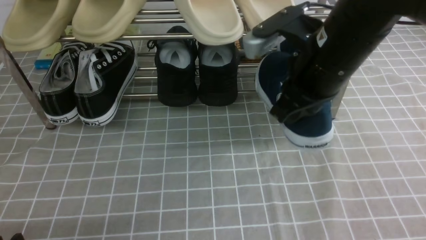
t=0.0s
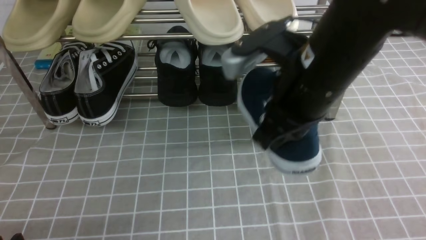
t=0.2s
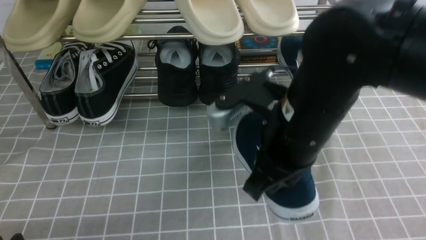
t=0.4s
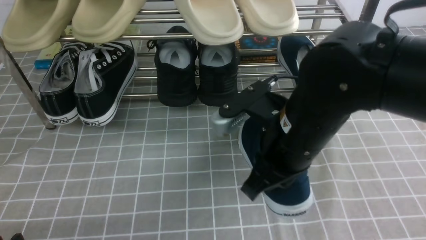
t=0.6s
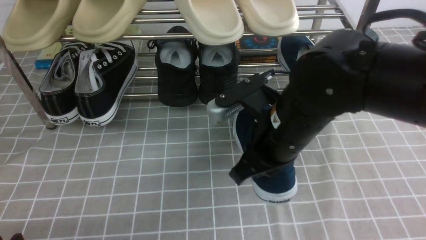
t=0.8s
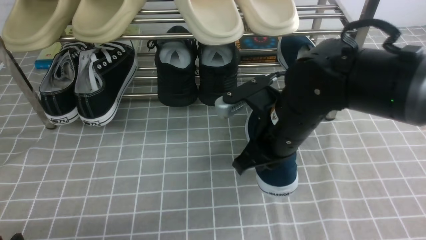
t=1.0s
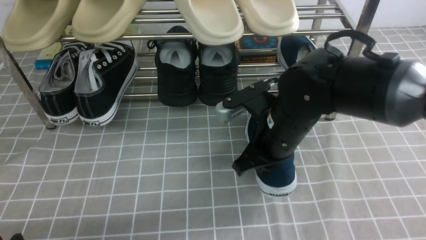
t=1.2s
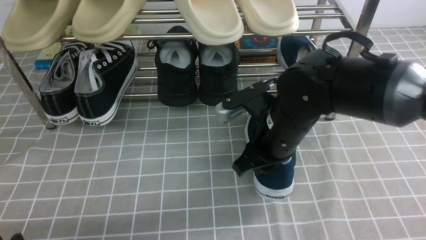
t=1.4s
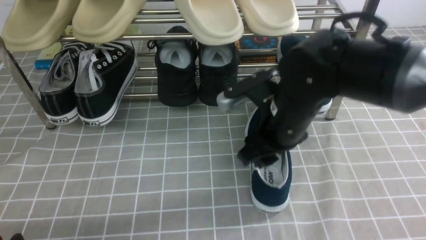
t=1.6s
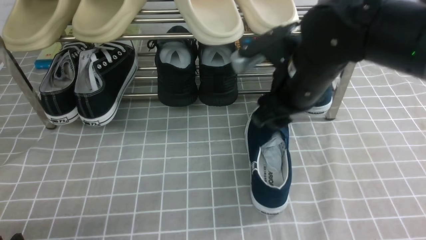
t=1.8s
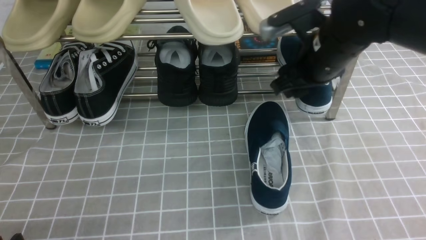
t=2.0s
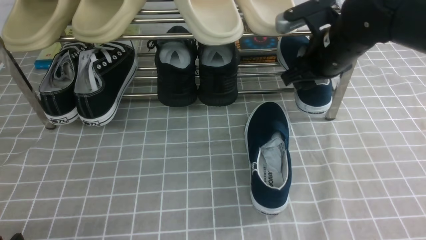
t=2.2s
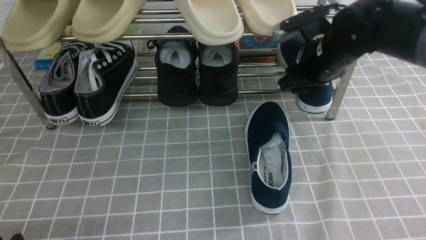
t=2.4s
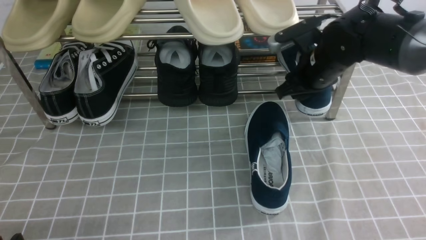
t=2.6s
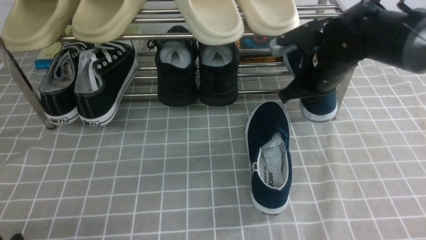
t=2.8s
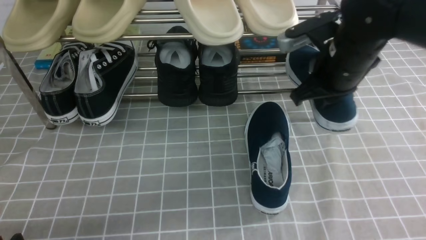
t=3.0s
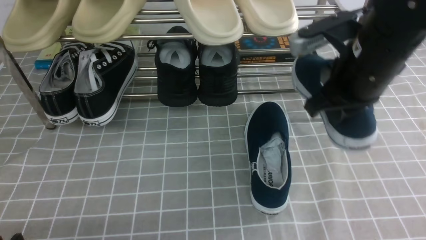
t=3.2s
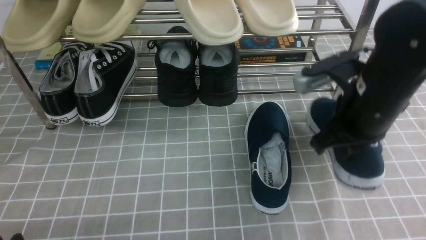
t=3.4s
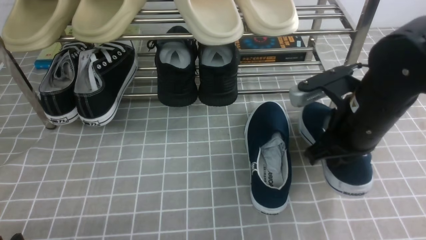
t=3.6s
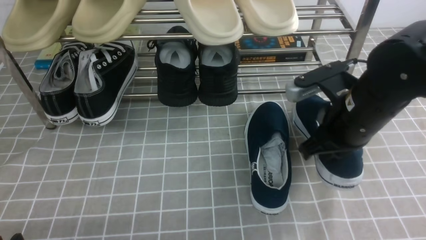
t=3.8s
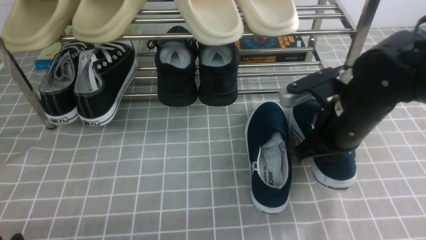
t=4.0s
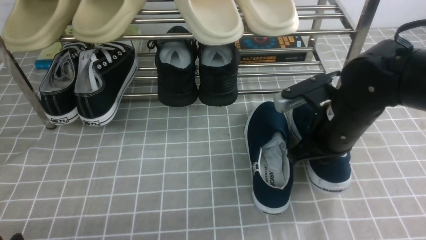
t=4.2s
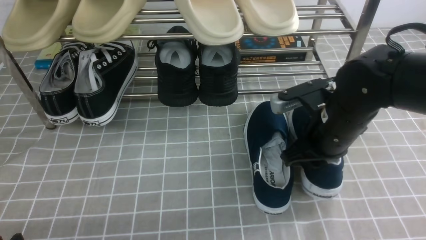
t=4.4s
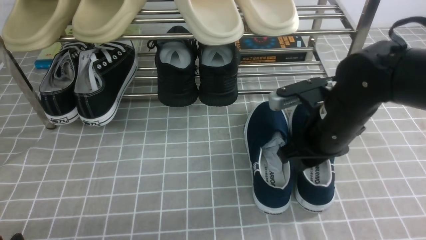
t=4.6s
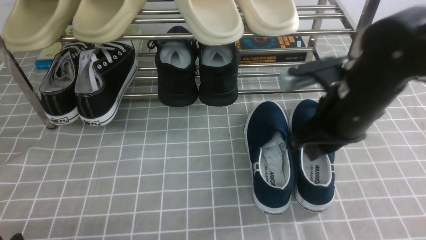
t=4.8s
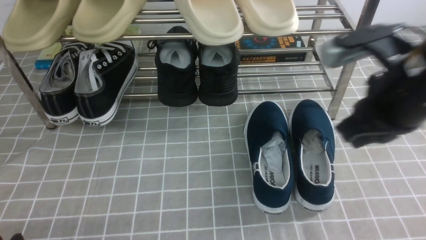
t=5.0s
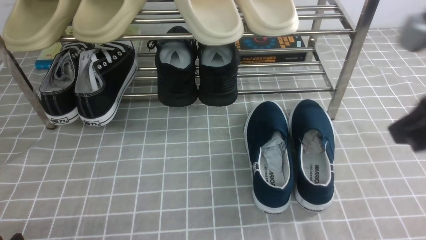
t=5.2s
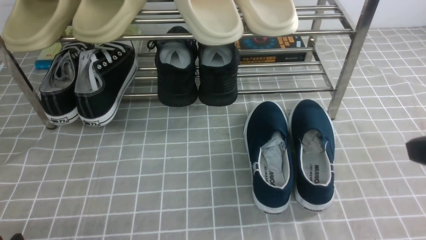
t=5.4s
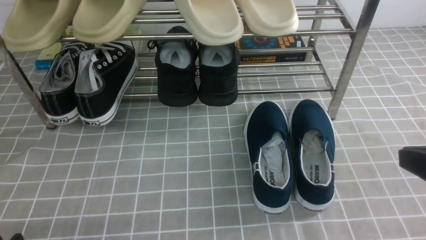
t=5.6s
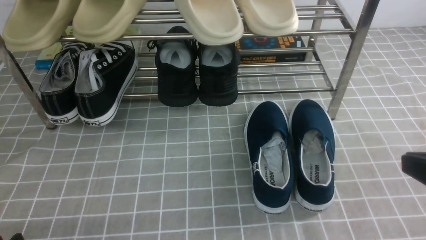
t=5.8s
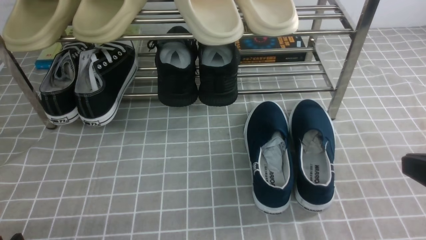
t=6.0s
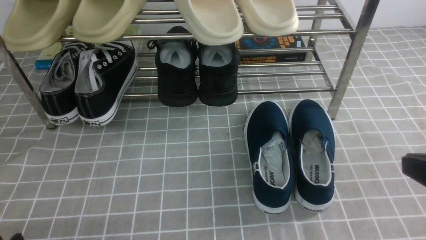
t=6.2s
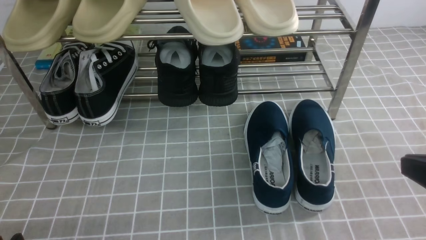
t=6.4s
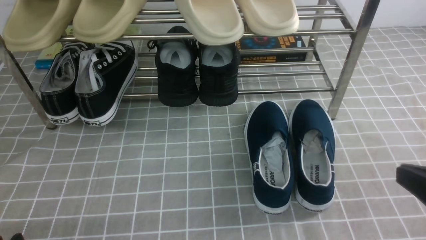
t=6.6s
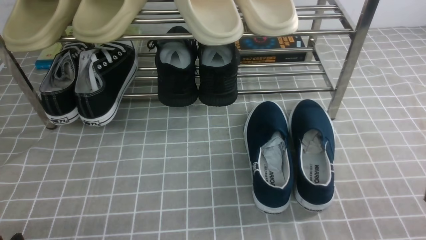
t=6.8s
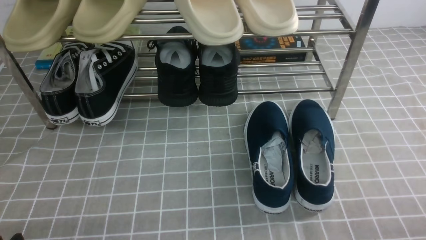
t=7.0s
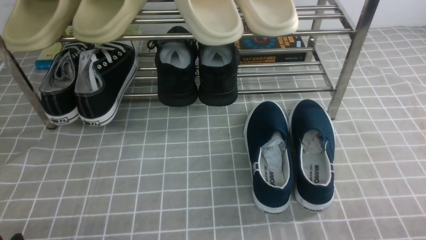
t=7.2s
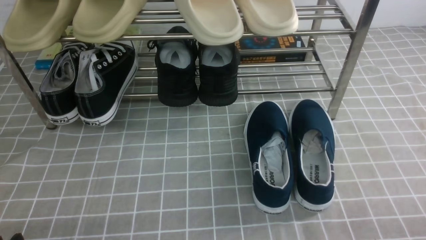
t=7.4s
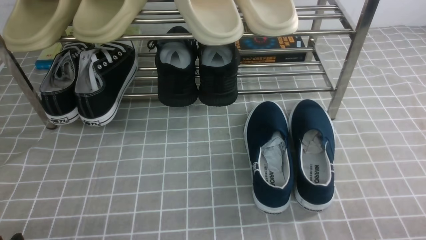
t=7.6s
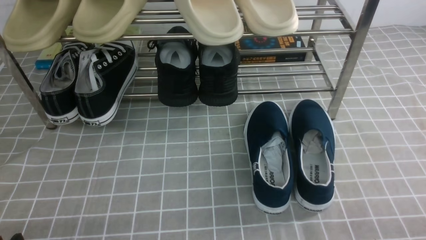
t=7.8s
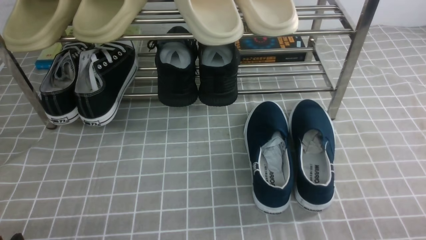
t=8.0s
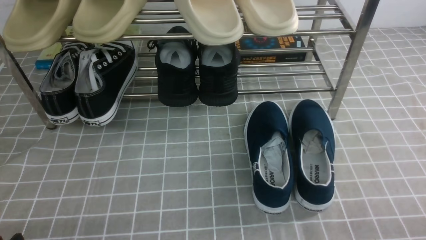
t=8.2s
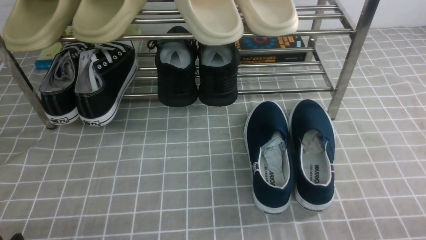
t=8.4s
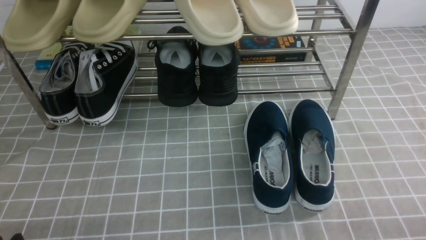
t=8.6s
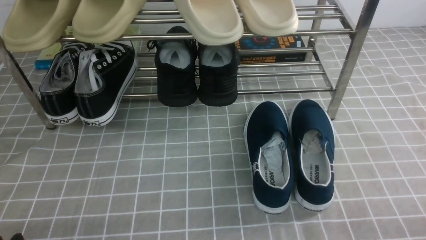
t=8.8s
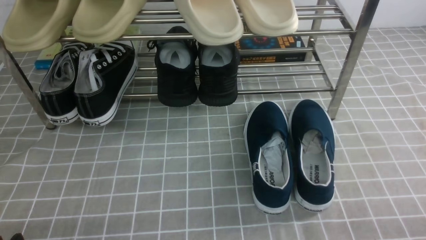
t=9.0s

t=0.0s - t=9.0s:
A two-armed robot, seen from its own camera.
Step, t=0.0s - t=1.6s: use the right arm to take out the clamped shoe from the shoe rack and put it down.
Step, t=1.8s - t=2.8s: use the right arm to clamp a shoe on the right side of the shoe rack.
Step, t=3.0s - t=4.8s: use the right arm to take out the clamped shoe from the shoe rack and put it down.
t=0.0s - t=1.6s: The right gripper travels downward by roughly 10 cm, and opens its fingers.
t=1.6s - t=3.0s: The right gripper heads to the right and forward, covering roughly 10 cm, and closes its fingers.
t=3.0s - t=4.4s: The right gripper shifts about 10 cm backward and downward.
t=4.4s - t=6.0s: The right gripper moves backward, to the right and upward, roughly 25 cm.
t=6.0s - t=7.6s: The right gripper moves downward and to the right, some 15 cm.
t=7.6s - t=9.0s: The two grippers keep their place.
